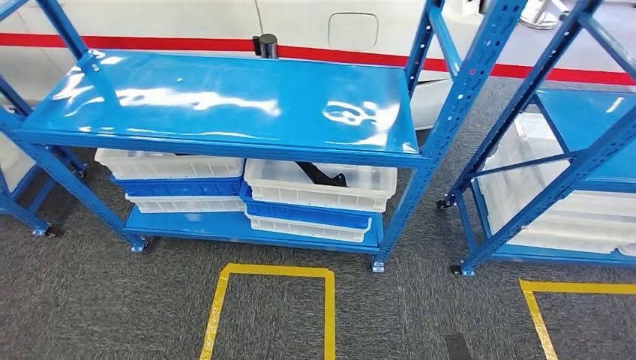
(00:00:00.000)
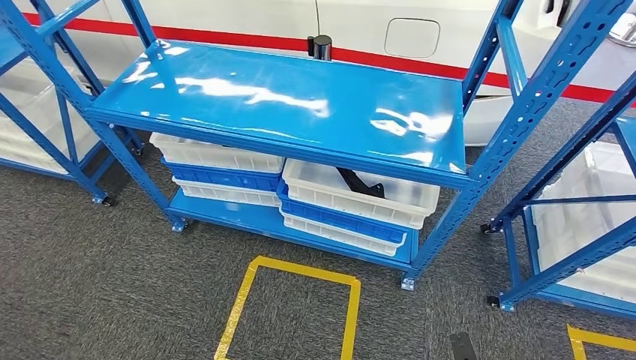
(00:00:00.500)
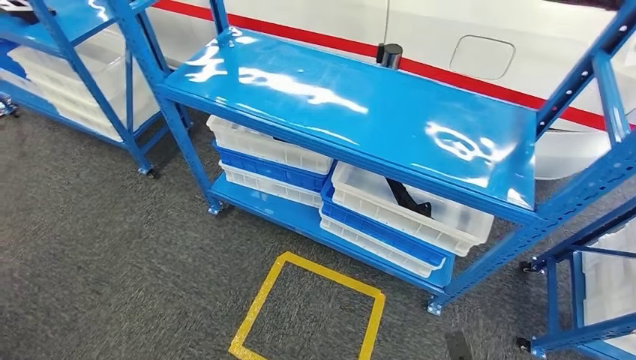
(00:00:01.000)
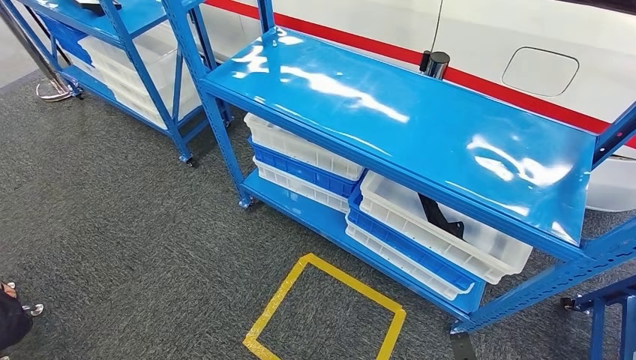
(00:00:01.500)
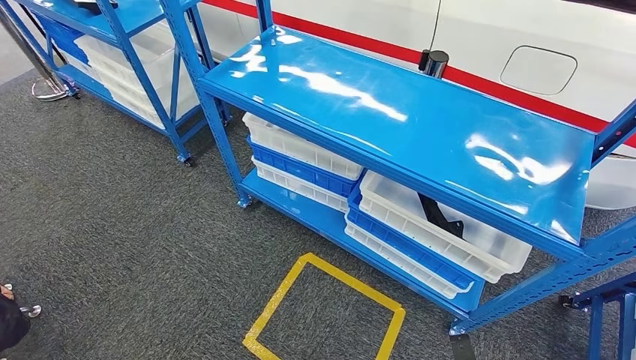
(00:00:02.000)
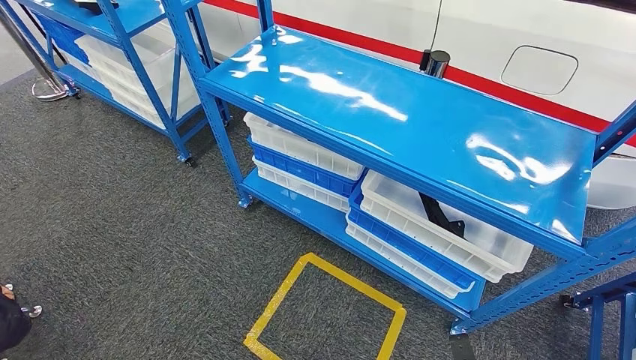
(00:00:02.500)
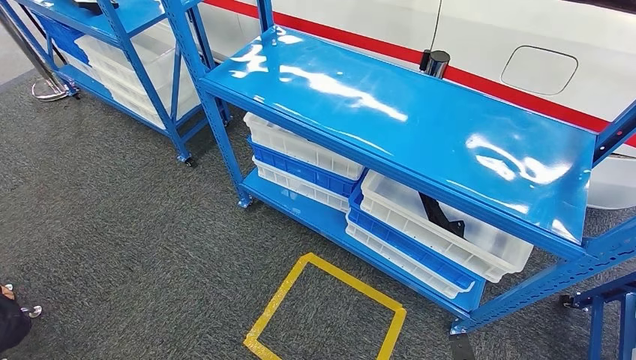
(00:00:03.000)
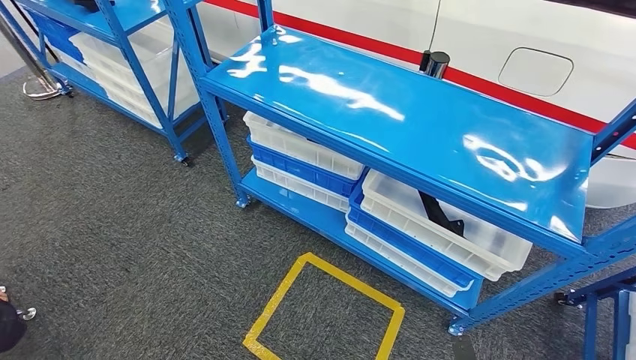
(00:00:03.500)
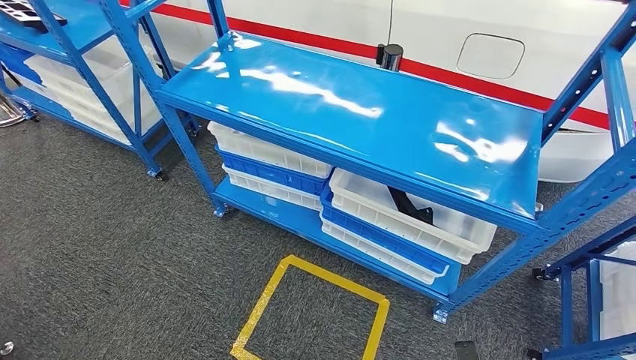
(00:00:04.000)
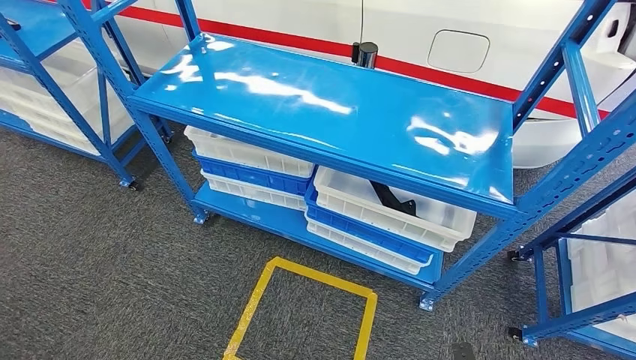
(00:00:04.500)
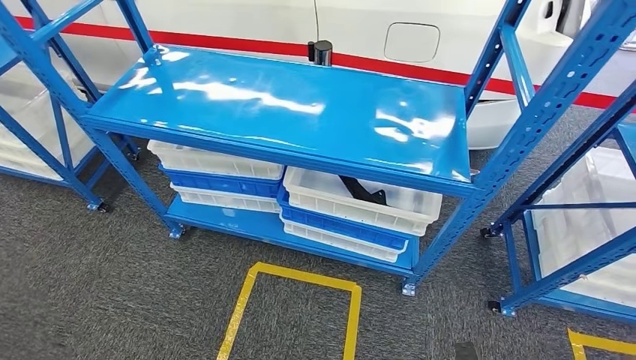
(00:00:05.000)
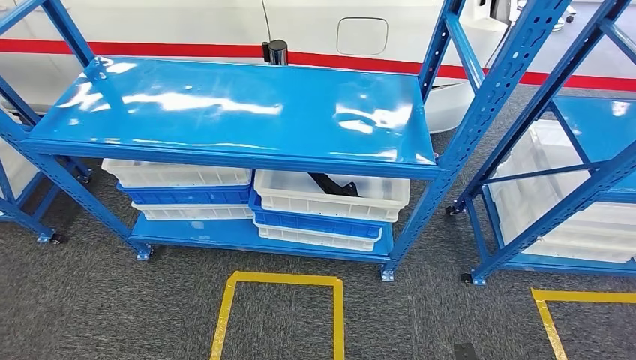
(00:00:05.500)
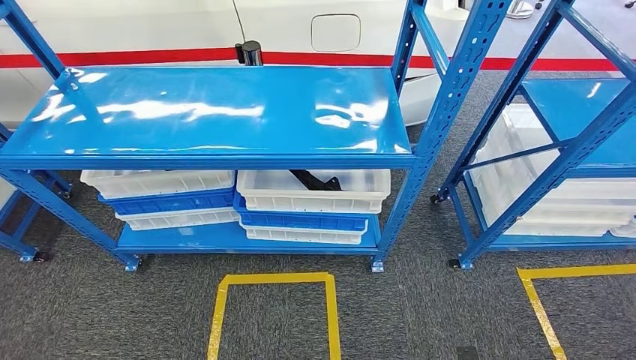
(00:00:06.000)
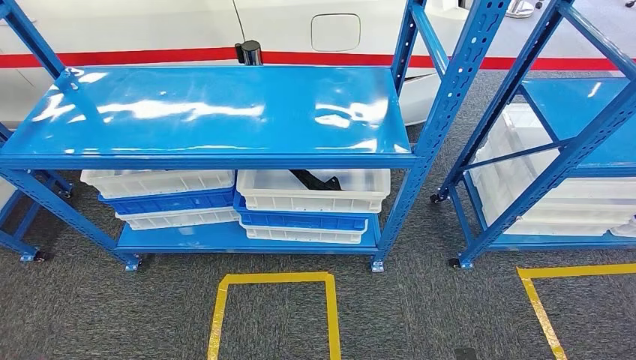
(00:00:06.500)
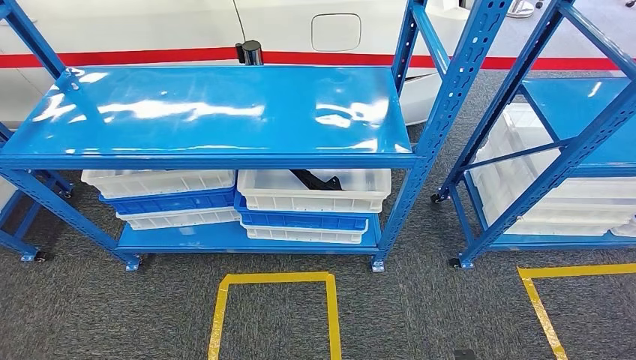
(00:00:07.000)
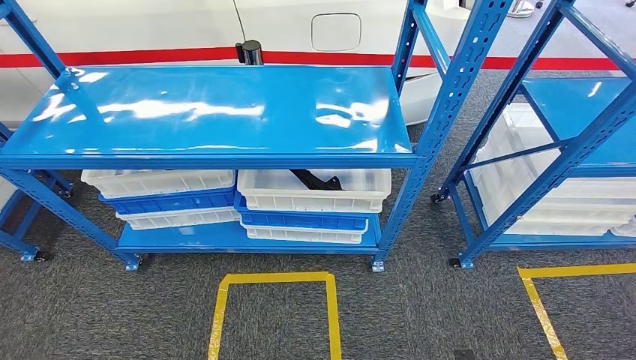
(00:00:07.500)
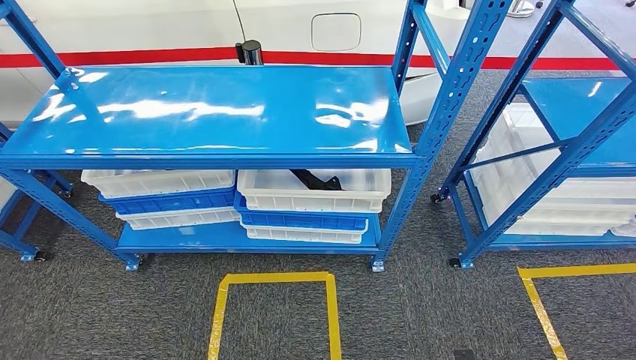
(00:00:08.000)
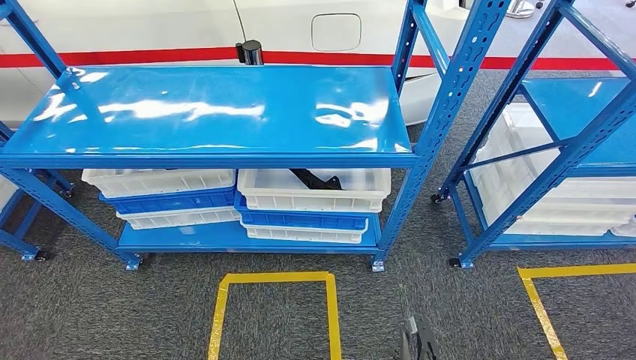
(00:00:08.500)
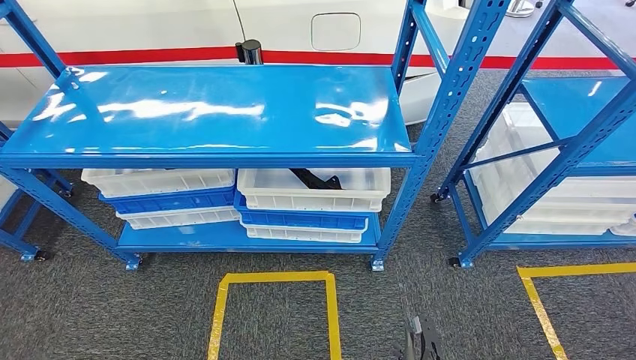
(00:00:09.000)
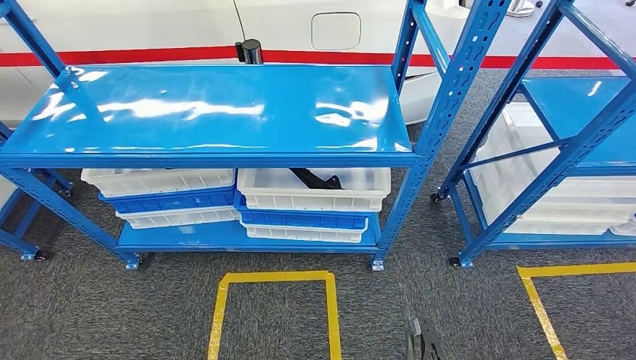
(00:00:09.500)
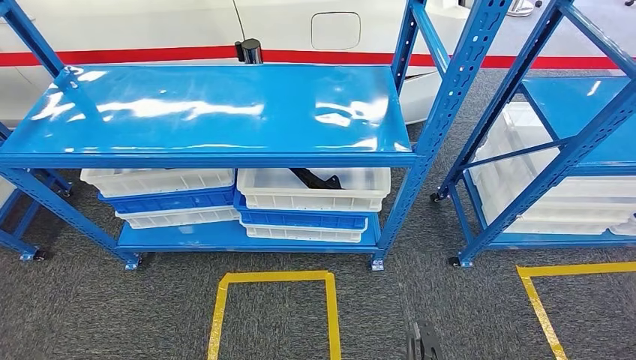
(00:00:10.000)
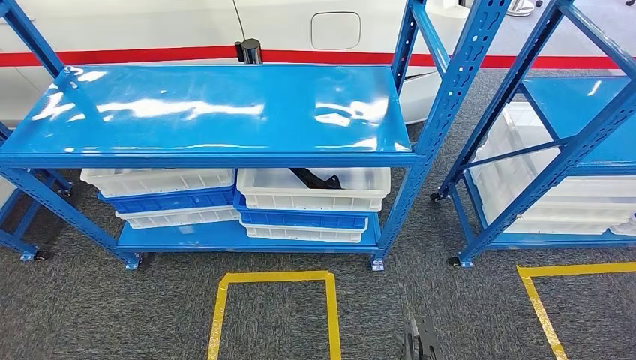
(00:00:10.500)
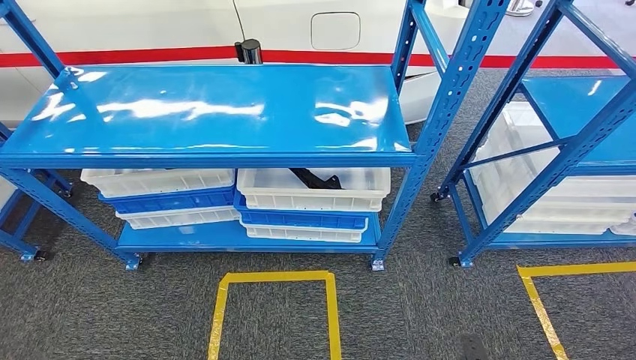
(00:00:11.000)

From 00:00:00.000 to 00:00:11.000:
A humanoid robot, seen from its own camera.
Step, from 00:00:00.000 to 00:00:11.000: Move to the initial position of the shelf.
From 00:00:02.000 to 00:00:03.500: Neither hand changes place.
From 00:00:07.500 to 00:00:09.000: The left hand is displaced to the right and forward by some 10 cm. Meanwhile the right hand is displaced to the left and forward by approximately 10 cm.
From 00:00:09.000 to 00:00:11.000: The right hand travels to the right by roughly 10 cm.
